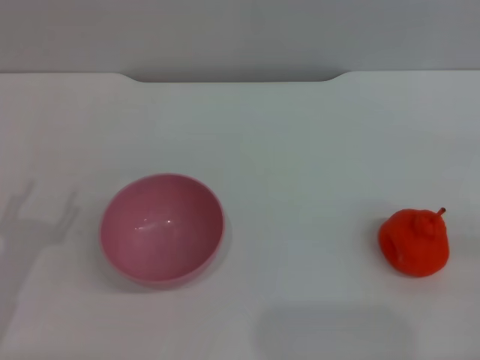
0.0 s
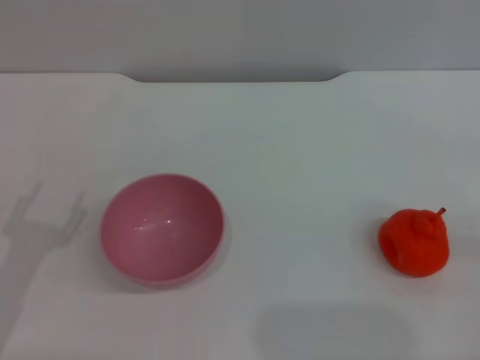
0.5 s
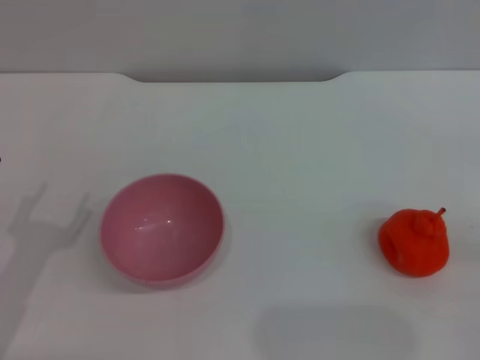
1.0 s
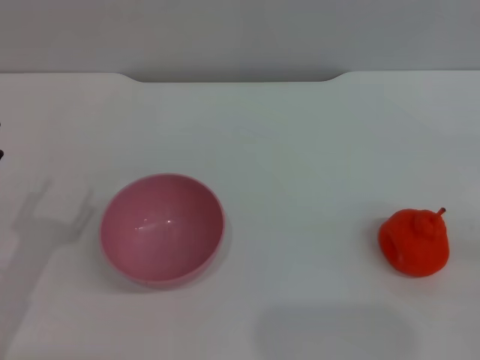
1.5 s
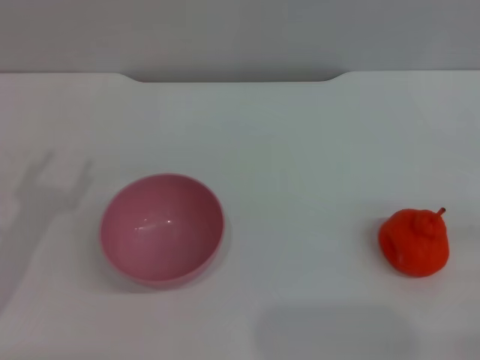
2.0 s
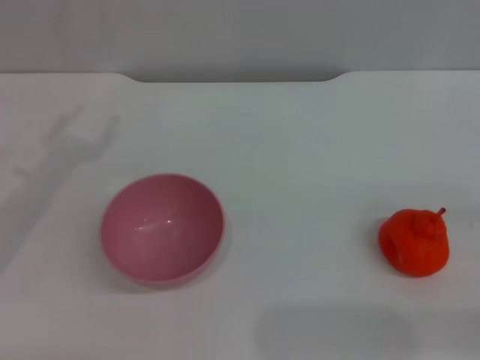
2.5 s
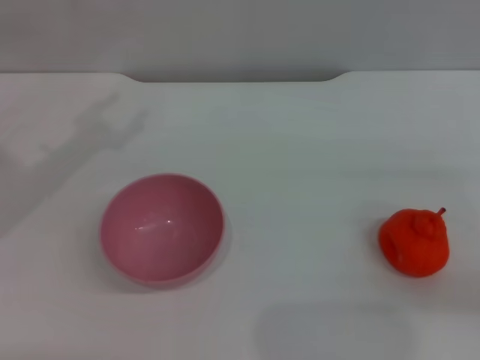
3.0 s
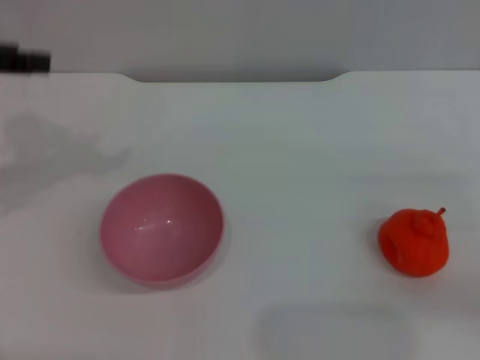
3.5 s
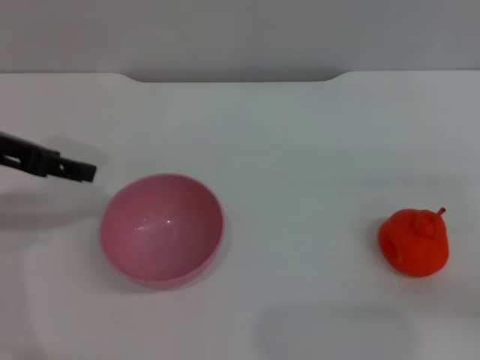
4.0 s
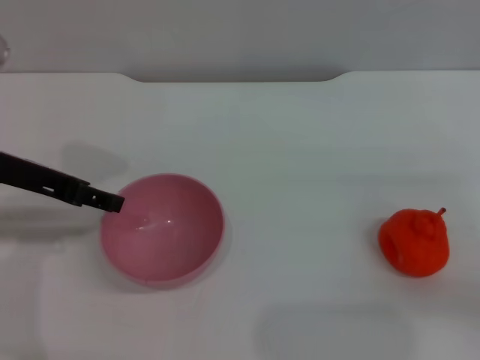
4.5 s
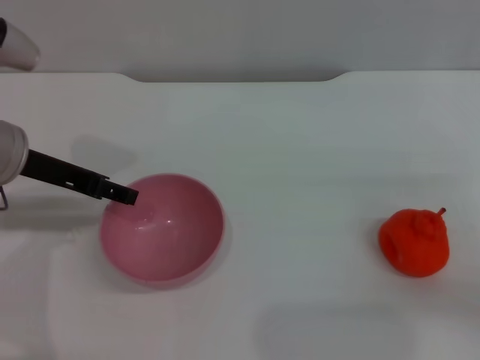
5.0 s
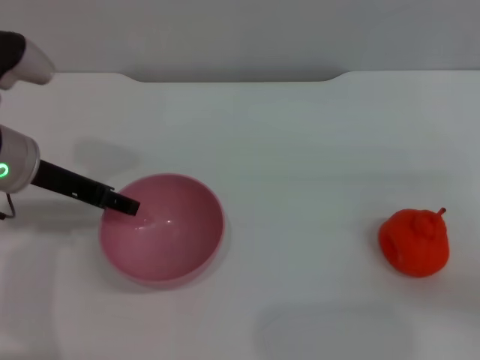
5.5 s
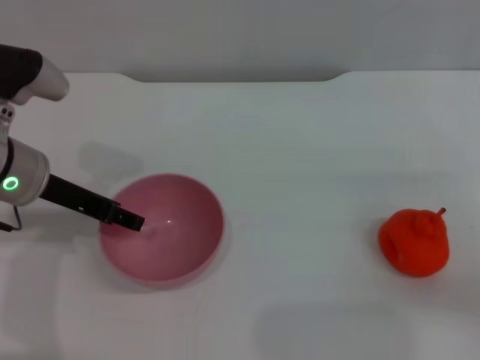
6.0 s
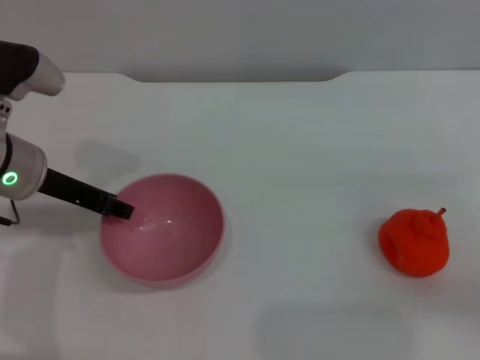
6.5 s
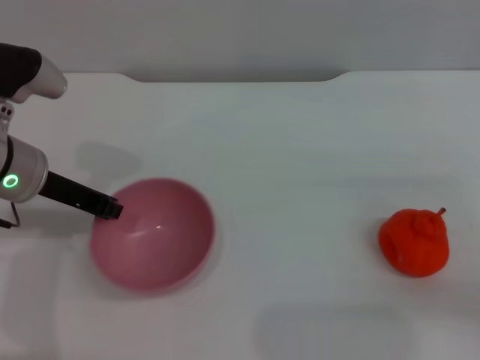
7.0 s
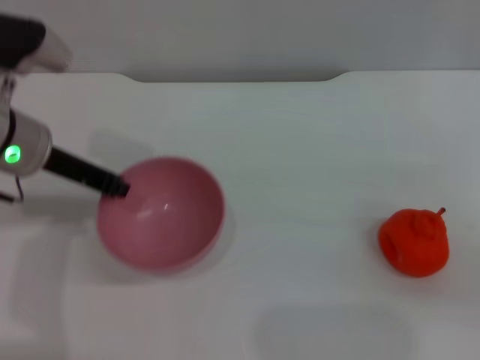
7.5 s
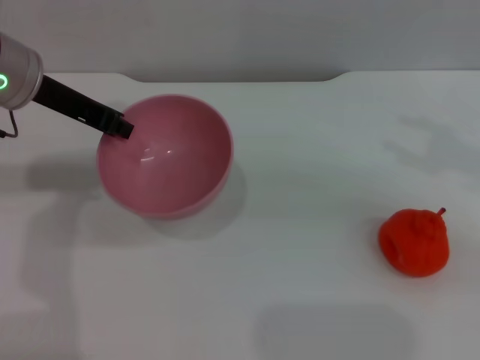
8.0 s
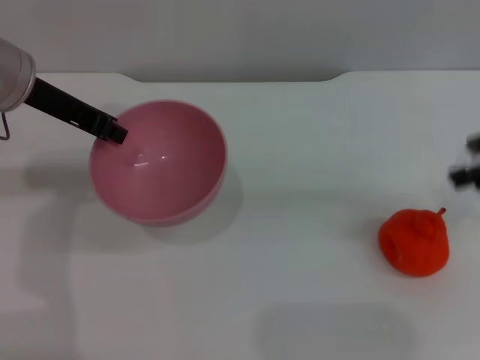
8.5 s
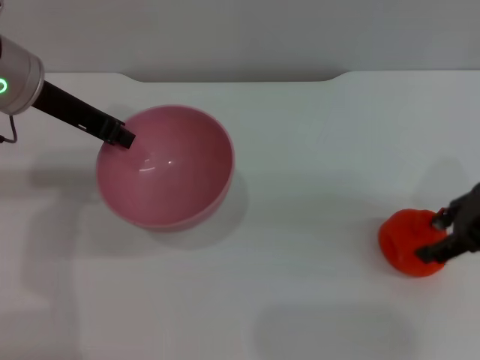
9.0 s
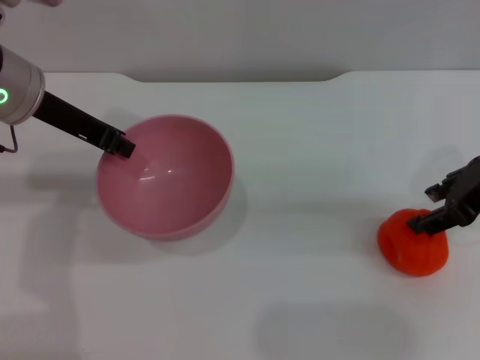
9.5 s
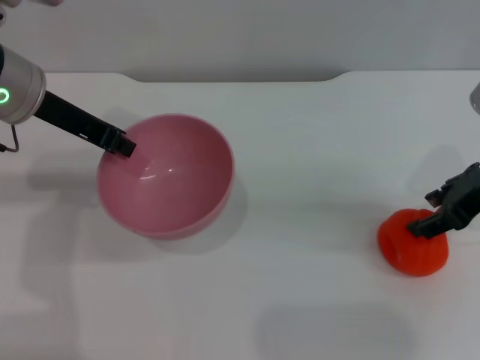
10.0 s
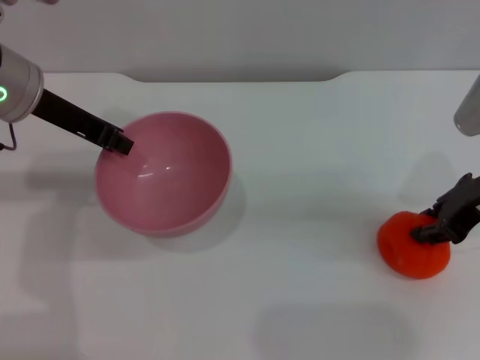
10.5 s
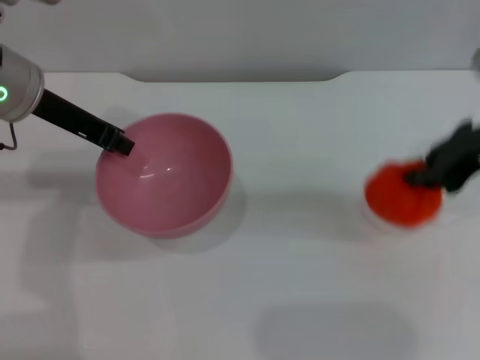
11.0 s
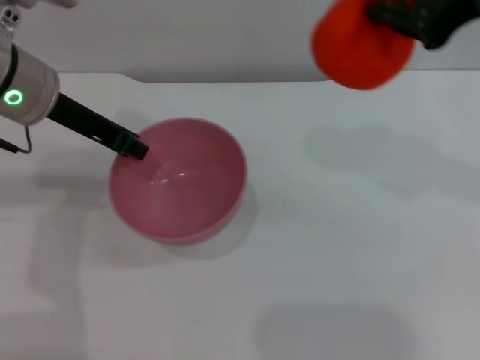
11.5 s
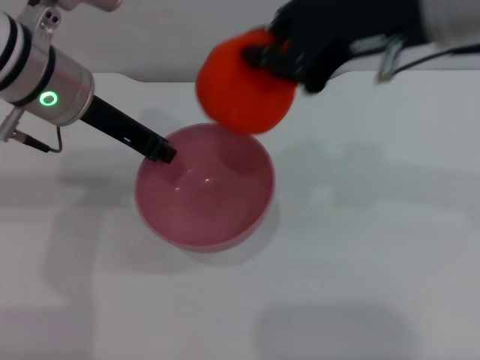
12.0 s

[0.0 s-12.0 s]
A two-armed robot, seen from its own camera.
Task of the whole recording: put the orange into the pink bowl and pour it out repeatedly.
Step, 0.0 to 7.5 s: Pick up the bowl with the left gripper.
Step, 8.0 to 11.0 s: Pick up the orange with the right gripper.
2.0 to 4.0 s: The left gripper is displaced upward and forward by some 15 cm.
4.0 to 6.0 s: The left gripper heads downward, covering about 10 cm.
6.0 to 8.0 s: The left gripper heads upward, covering about 10 cm, and closes up; the right gripper heads upward, covering roughly 15 cm.
8.0 to 10.0 s: The right gripper goes roughly 10 cm downward and to the left.
10.0 to 12.0 s: The right gripper moves upward and to the left, approximately 20 cm, and closes its fingers.

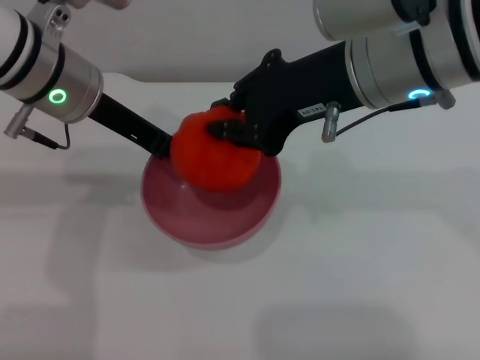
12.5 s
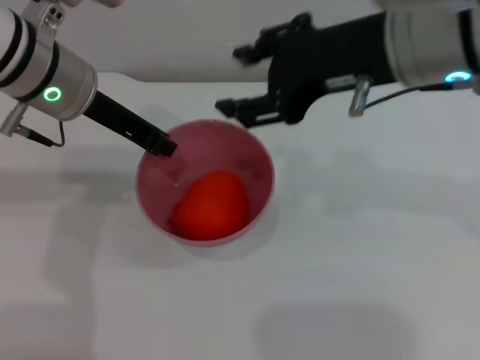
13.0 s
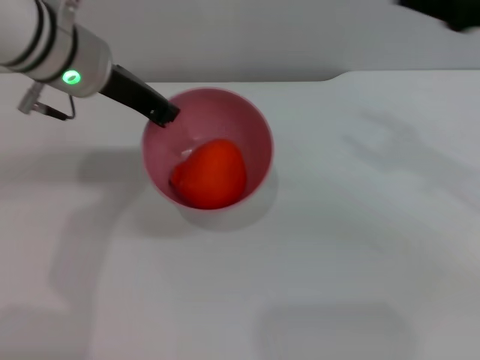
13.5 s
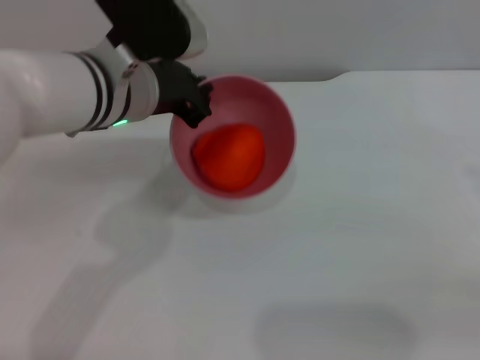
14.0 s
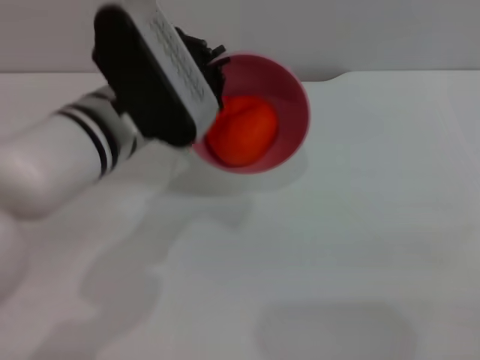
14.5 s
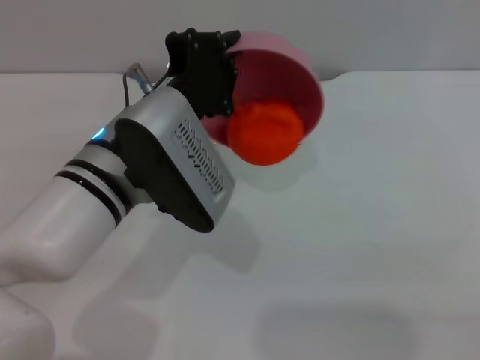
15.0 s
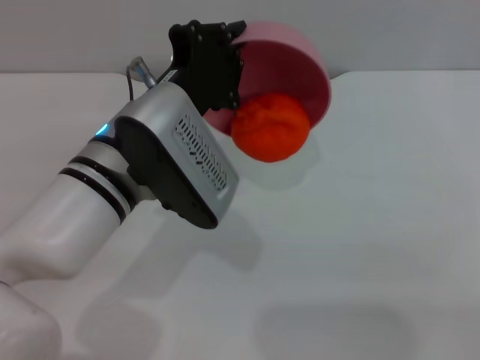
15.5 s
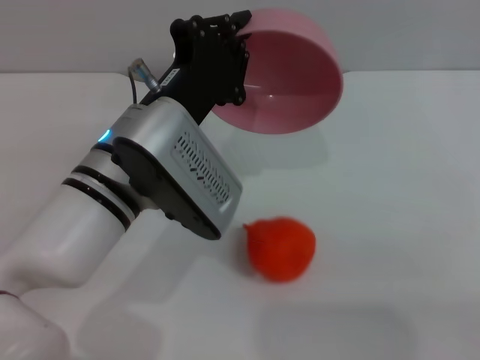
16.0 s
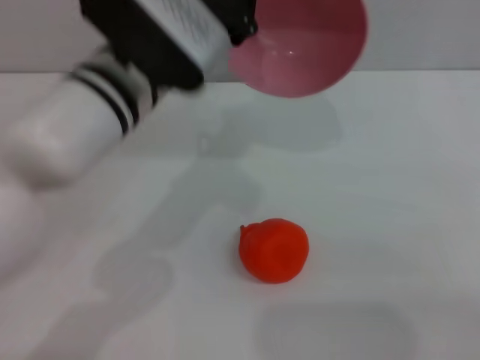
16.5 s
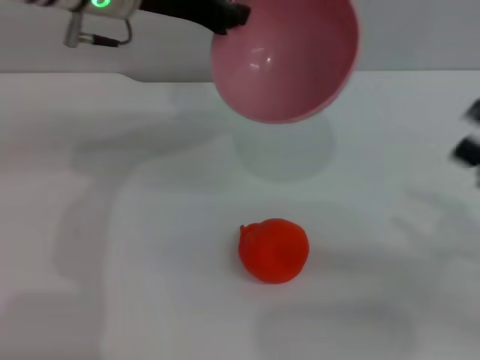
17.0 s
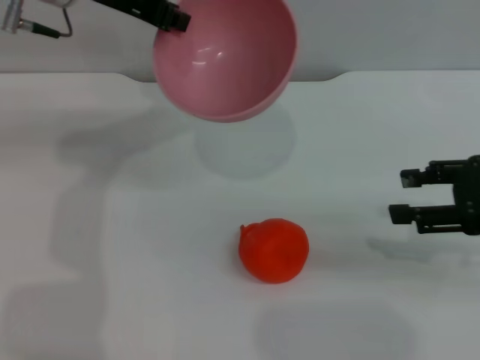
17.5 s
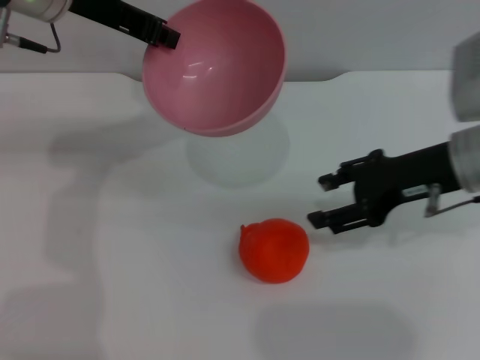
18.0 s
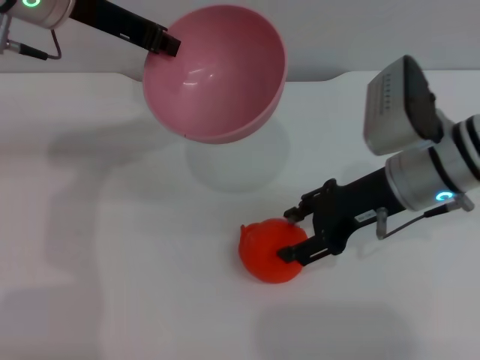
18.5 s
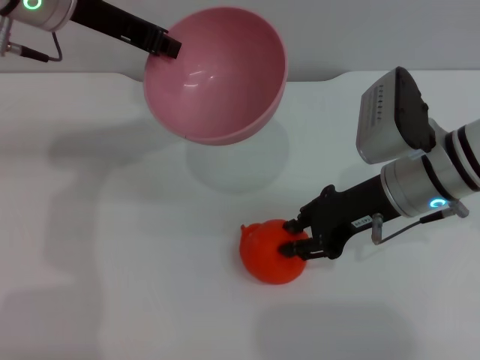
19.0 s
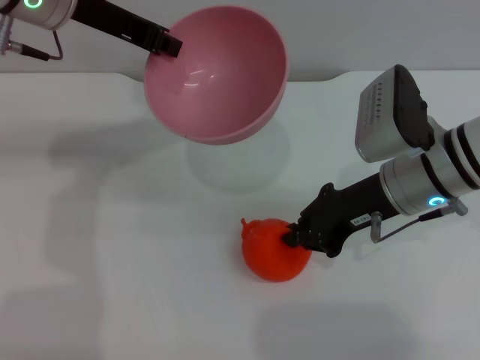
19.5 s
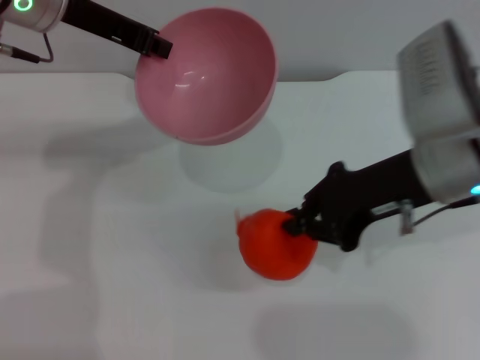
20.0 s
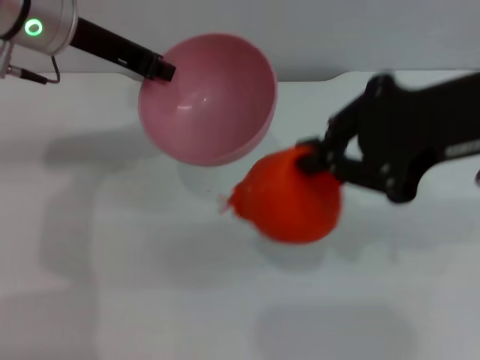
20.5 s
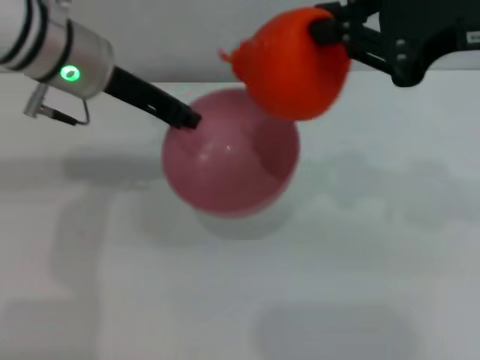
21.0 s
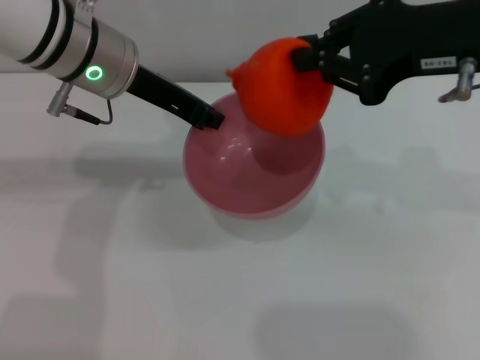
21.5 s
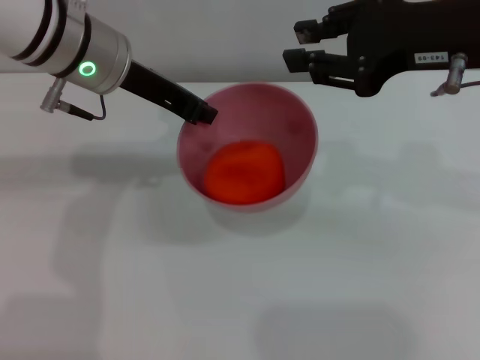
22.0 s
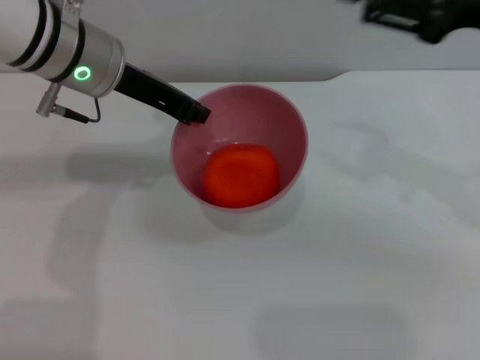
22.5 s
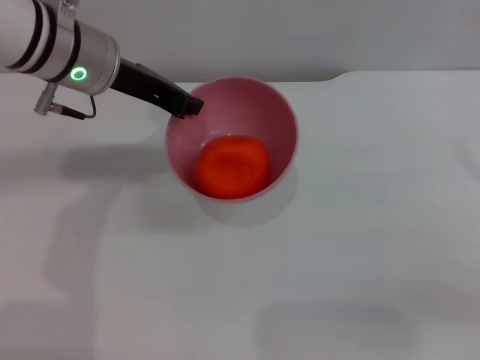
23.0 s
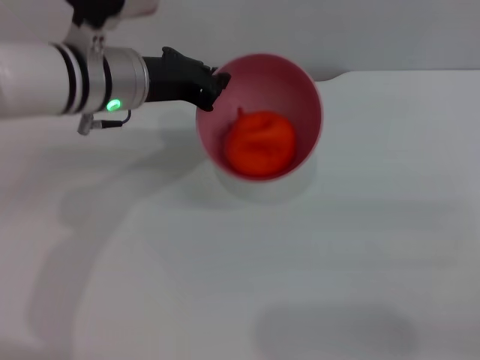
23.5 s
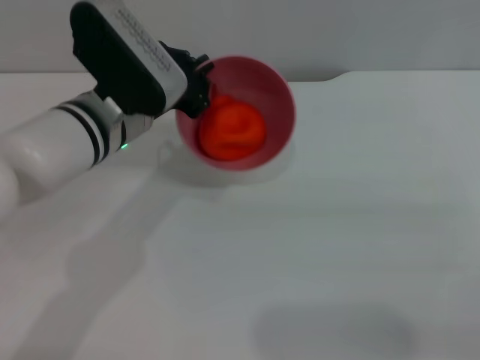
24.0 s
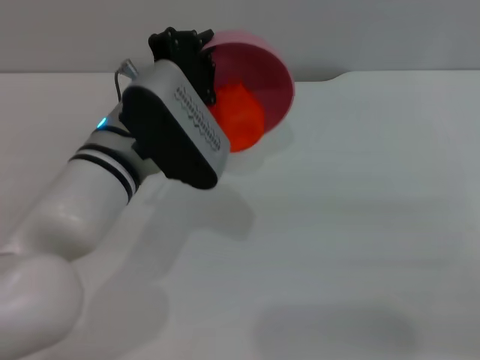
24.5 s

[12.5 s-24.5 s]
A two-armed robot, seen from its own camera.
Task of the whole recording: put the orange into the pink bowl and pour it out repeatedly.
Step, 13.0 to 16.0 s: Pour the orange out of the bowl.
Step, 16.5 to 20.0 s: Pick up the orange with the right gripper.
Step, 20.5 to 22.0 s: Place the orange into the bowl.
12.5 to 14.5 s: The left gripper goes approximately 10 cm backward and to the right. The right gripper travels to the right, backward and downward by approximately 35 cm, and opens.
16.5 to 18.5 s: The right gripper heads to the left and forward, covering some 25 cm. The left gripper shifts approximately 15 cm to the left, forward and upward.
18.5 to 20.5 s: The right gripper travels upward and backward by about 20 cm, and closes.
20.5 to 22.5 s: The right gripper goes about 5 cm to the right, and opens.
22.5 to 24.5 s: The left gripper moves downward, backward and to the right, about 15 cm, while the right gripper goes approximately 20 cm downward, to the right and backward.

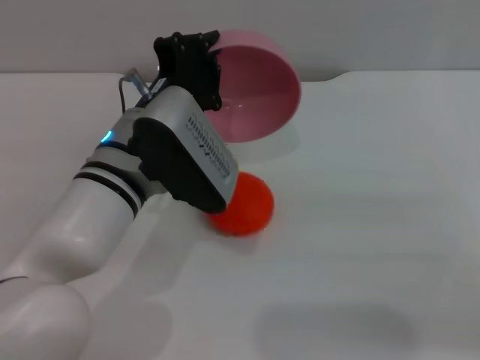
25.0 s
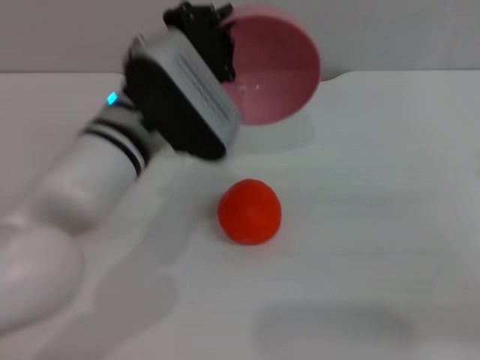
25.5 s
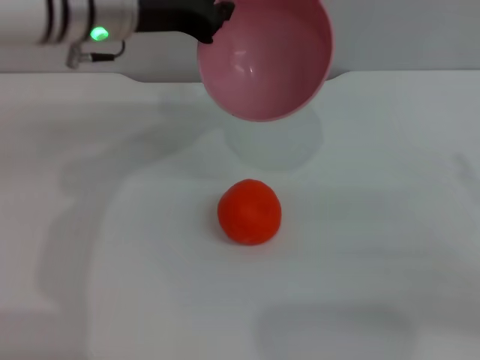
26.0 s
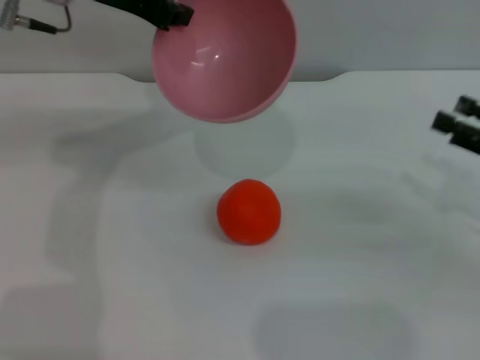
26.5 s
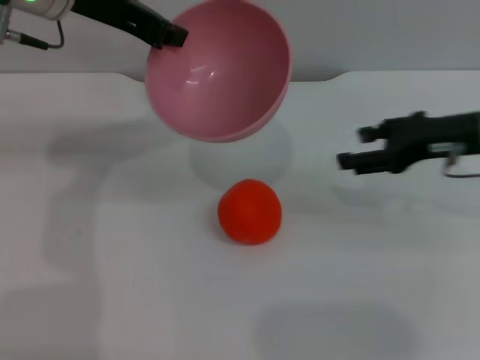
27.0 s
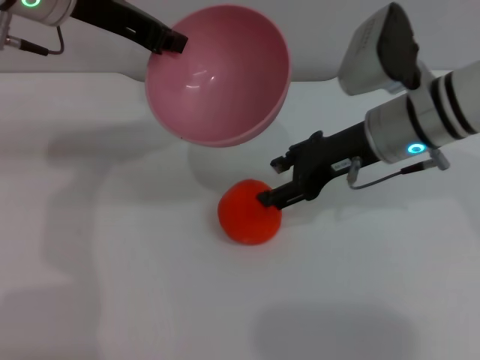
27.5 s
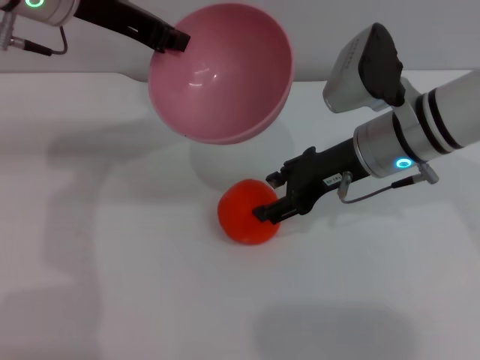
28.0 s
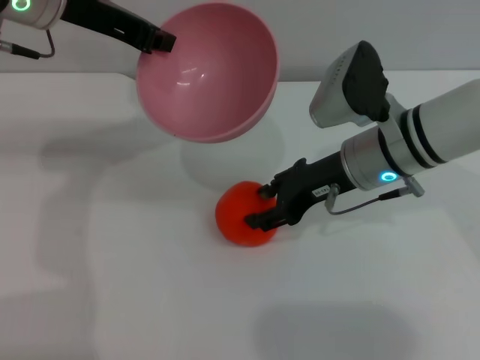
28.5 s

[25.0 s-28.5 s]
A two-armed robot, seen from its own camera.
Task of the whole recording: put the orange into the pink bowl and pour it out repeatedly.
25.0 to 27.0 s: The right gripper is displaced forward and to the left by approximately 15 cm, while the left gripper shifts some 20 cm upward, forward and to the left.
27.0 to 28.5 s: The right gripper is displaced to the left by about 10 cm.
